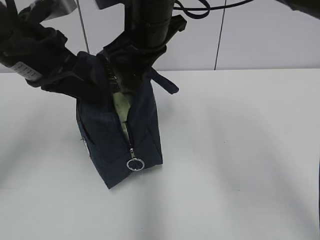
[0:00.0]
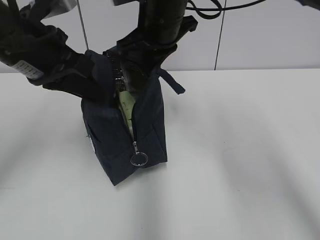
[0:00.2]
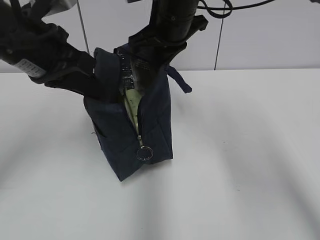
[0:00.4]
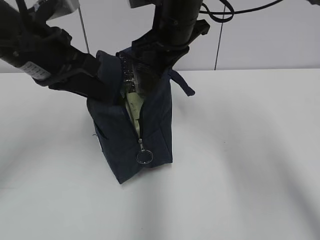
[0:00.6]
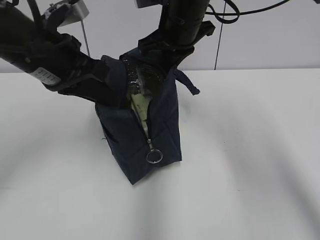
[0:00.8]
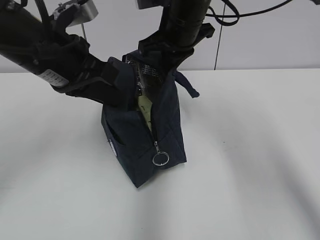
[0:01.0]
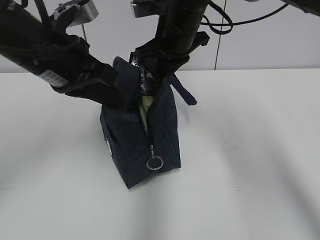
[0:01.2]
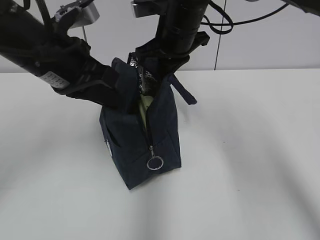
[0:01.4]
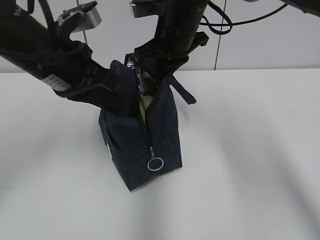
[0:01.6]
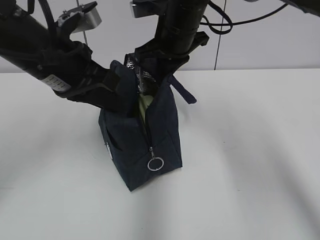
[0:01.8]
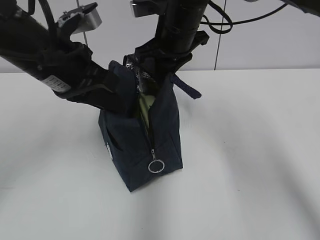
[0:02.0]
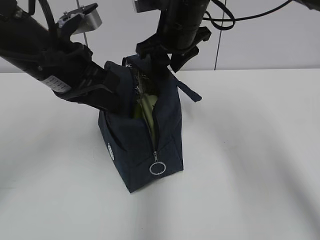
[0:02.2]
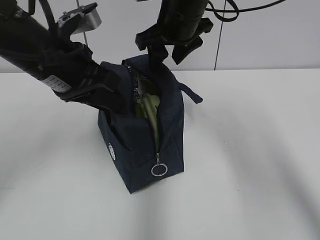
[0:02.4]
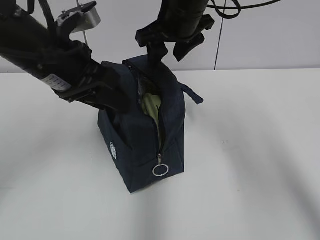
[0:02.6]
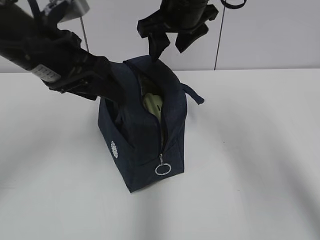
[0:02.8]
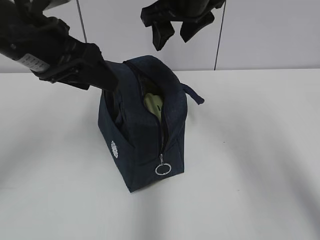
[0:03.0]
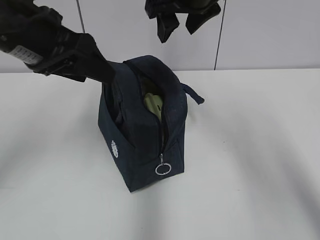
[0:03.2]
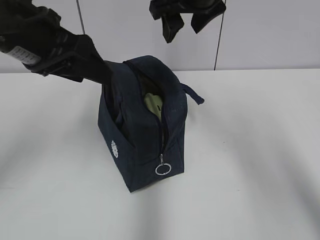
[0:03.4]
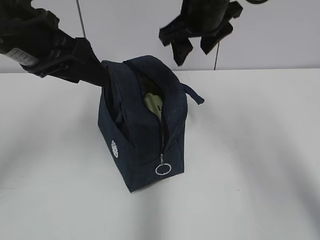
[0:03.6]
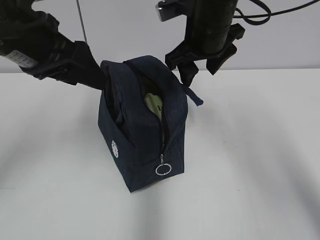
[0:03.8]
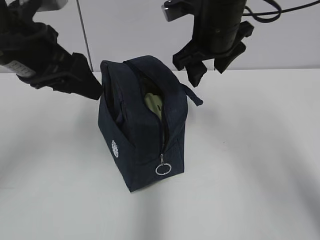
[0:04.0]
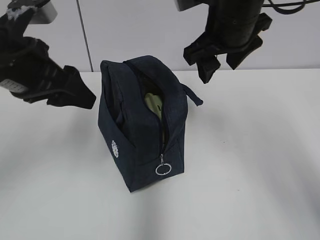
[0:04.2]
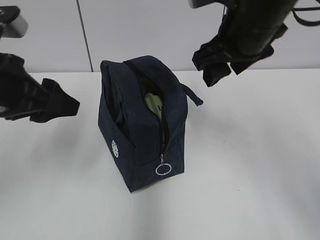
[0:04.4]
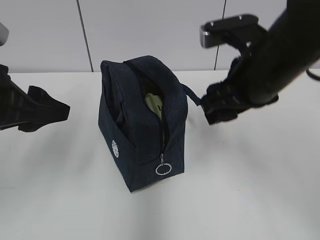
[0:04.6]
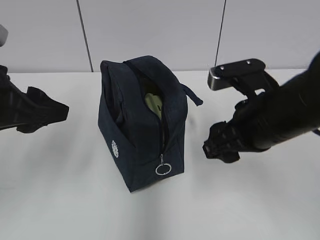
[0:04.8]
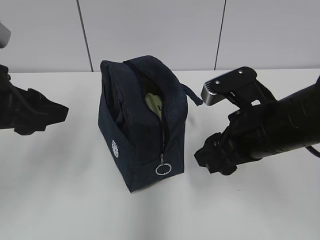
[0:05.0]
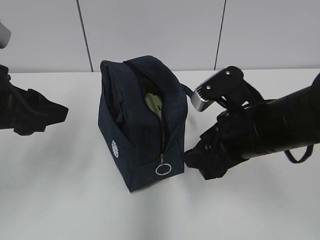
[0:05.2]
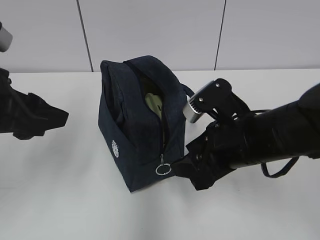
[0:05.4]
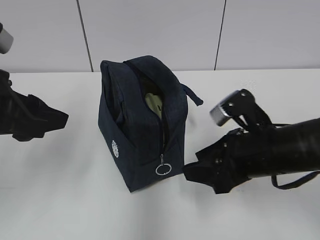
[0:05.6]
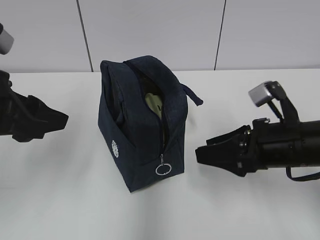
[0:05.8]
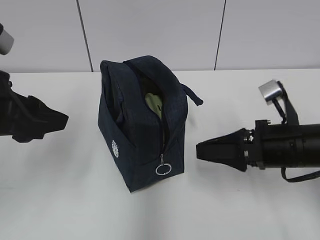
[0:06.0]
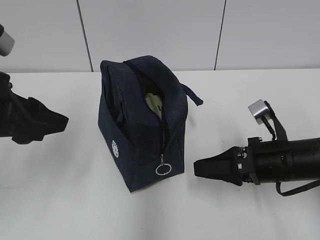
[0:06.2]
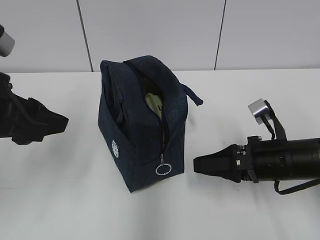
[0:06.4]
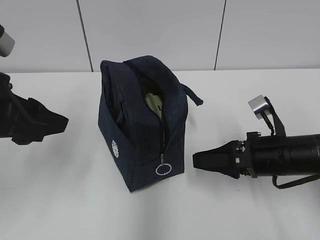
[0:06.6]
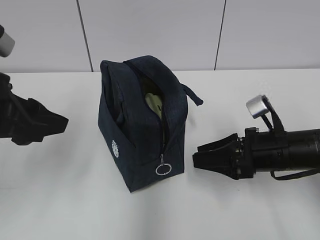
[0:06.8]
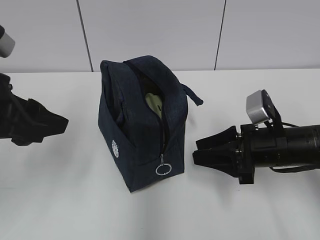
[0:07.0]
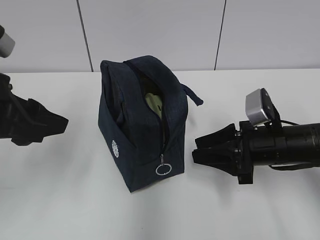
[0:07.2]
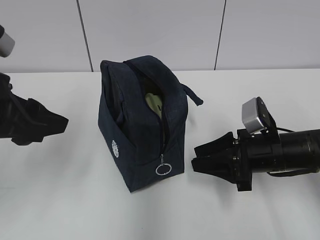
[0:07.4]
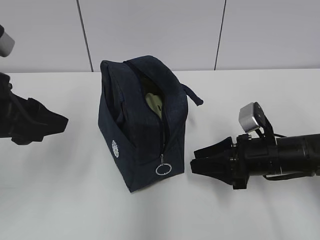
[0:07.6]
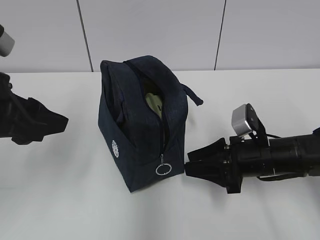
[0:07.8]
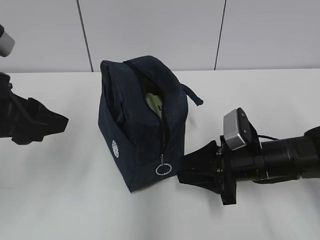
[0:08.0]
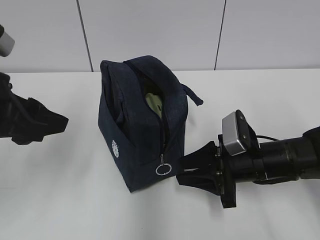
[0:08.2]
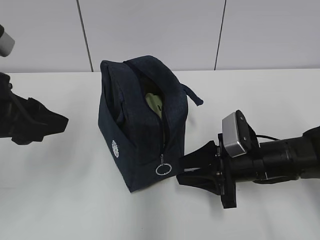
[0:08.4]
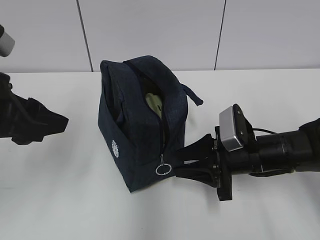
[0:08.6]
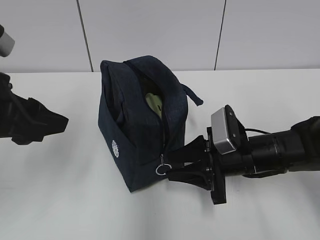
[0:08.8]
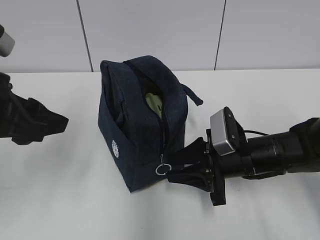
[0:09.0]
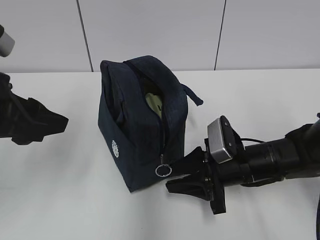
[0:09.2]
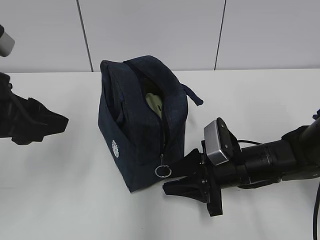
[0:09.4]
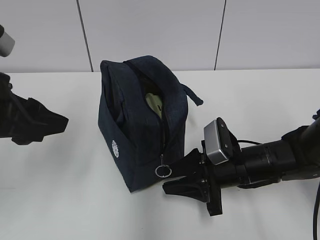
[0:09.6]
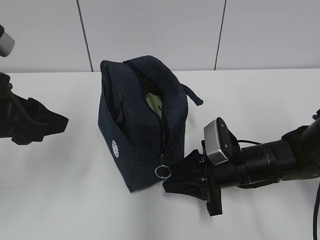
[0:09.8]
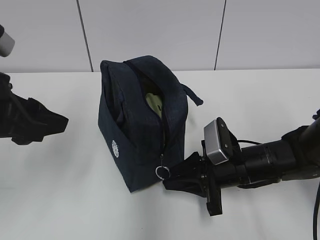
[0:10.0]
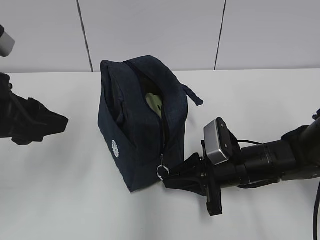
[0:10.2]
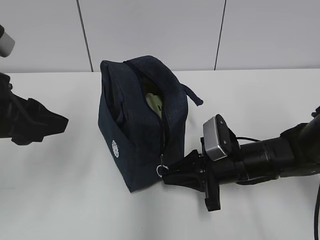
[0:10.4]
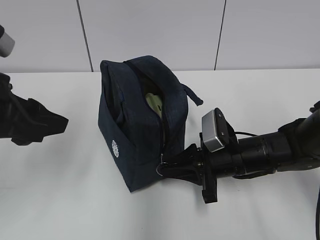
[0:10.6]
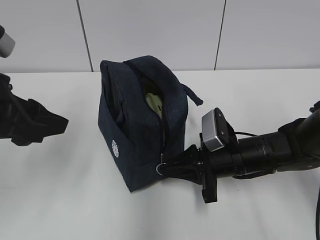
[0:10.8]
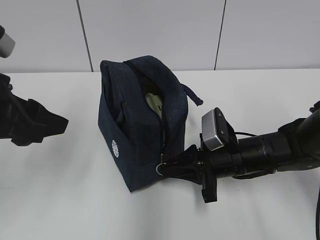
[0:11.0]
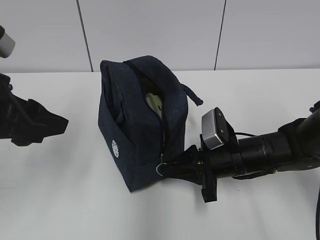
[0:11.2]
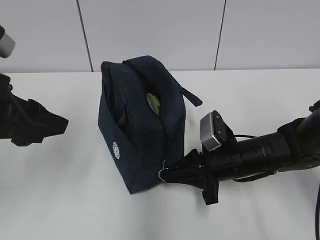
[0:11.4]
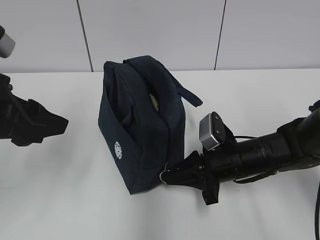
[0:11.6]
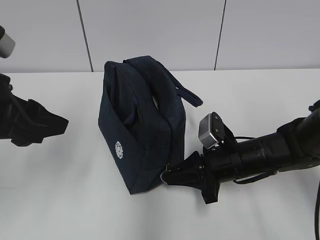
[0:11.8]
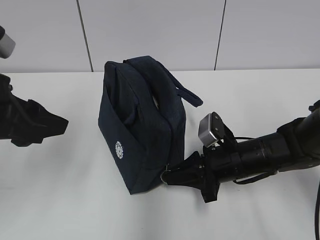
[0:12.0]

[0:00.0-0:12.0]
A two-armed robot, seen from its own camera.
Step, 0:00.0 to 0:02.2: Move the lunch bag to the right.
0:00.0 to 0:01.6: The right gripper changes place by roughly 5 cm.
0:01.6 to 0:03.0: The right gripper moves upward, approximately 5 cm, and opens up; the left gripper opens.
0:03.0 to 0:04.4: The left gripper ends up approximately 5 cm from where it was. The right gripper heads backward and to the right, covering roughly 10 cm.
0:04.4 to 0:06.0: The right gripper travels downward, to the right and backward by approximately 20 cm.
0:06.0 to 0:07.6: The right gripper goes roughly 5 cm downward.
0:09.0 to 0:10.4: The right gripper closes up.
0:10.4 to 0:12.0: The grippers move only a little.

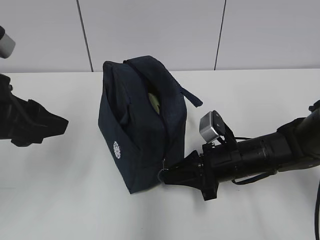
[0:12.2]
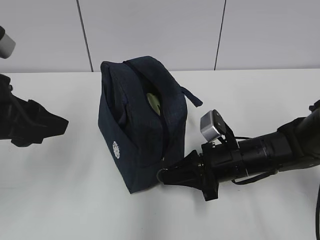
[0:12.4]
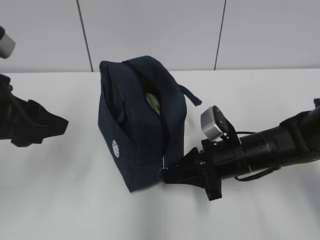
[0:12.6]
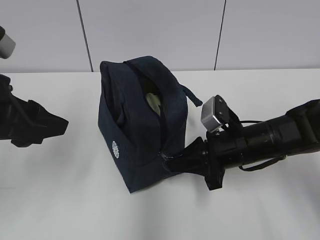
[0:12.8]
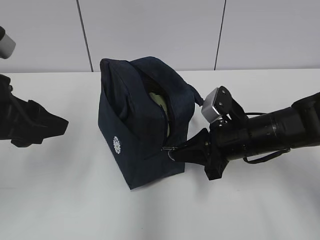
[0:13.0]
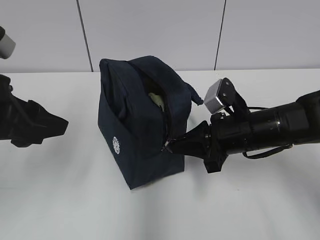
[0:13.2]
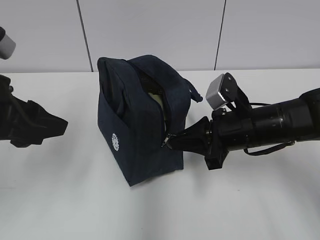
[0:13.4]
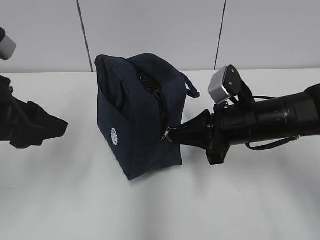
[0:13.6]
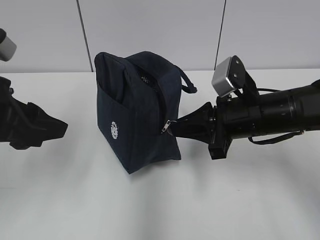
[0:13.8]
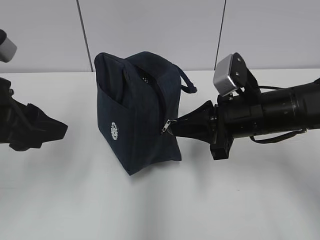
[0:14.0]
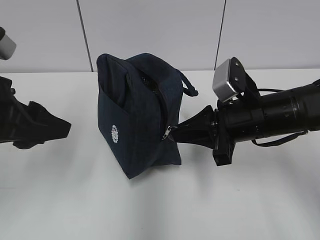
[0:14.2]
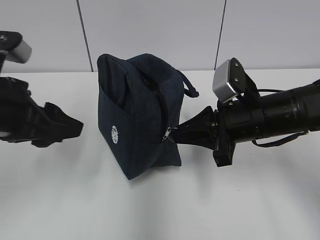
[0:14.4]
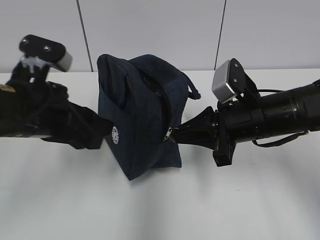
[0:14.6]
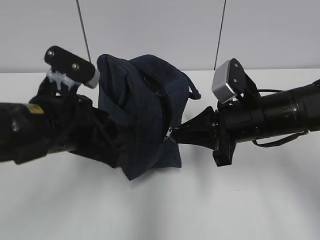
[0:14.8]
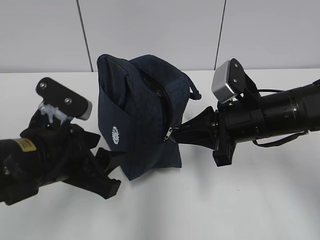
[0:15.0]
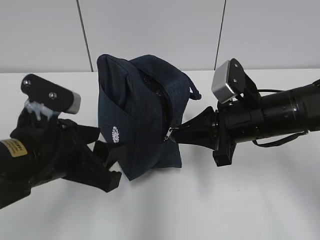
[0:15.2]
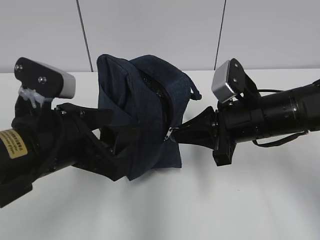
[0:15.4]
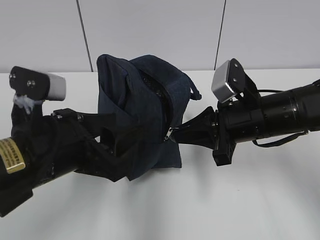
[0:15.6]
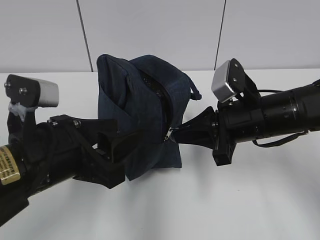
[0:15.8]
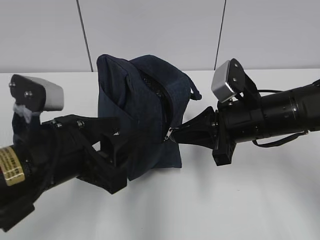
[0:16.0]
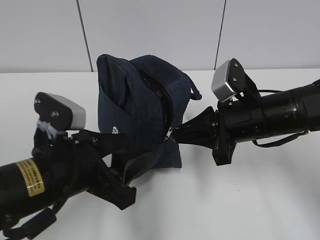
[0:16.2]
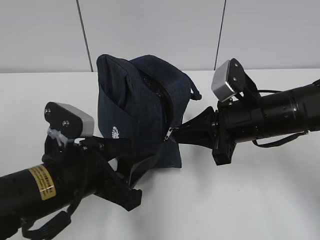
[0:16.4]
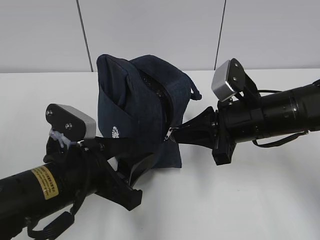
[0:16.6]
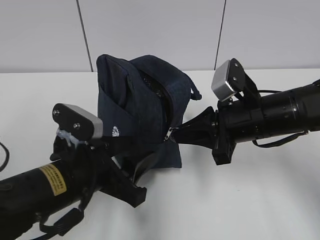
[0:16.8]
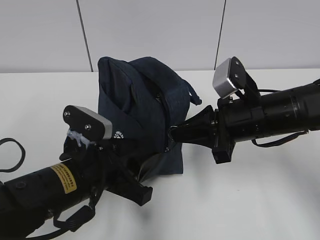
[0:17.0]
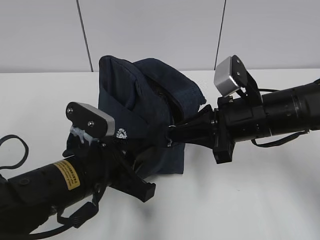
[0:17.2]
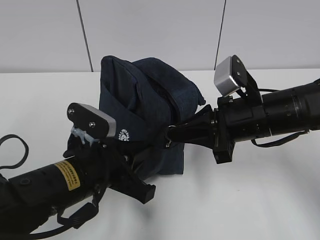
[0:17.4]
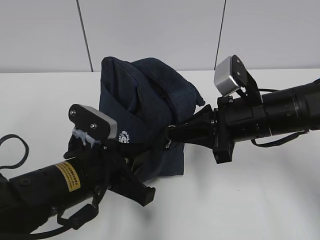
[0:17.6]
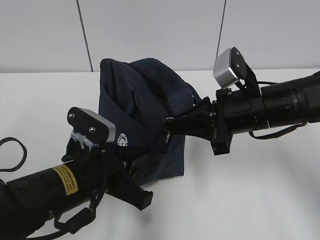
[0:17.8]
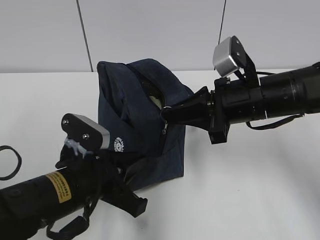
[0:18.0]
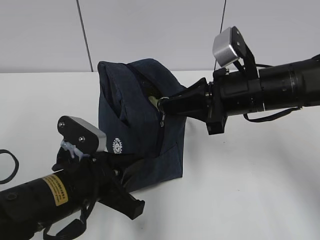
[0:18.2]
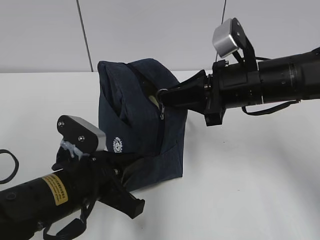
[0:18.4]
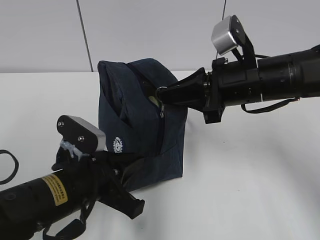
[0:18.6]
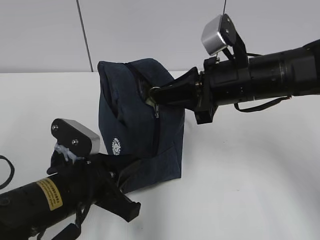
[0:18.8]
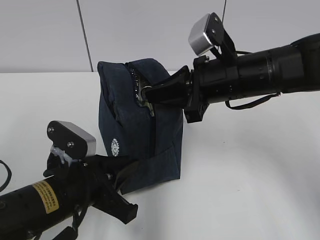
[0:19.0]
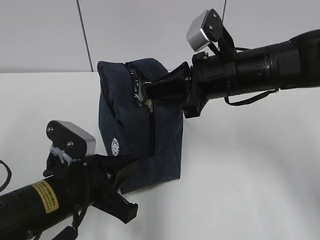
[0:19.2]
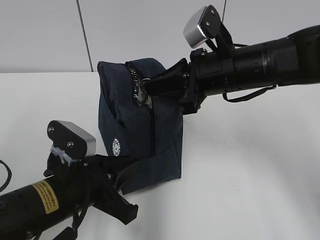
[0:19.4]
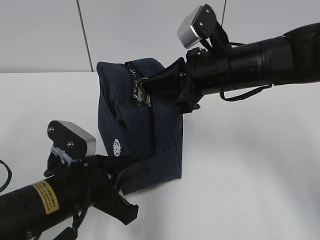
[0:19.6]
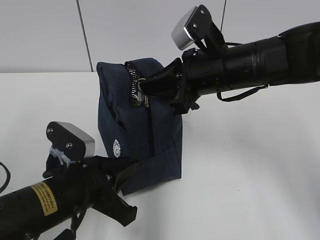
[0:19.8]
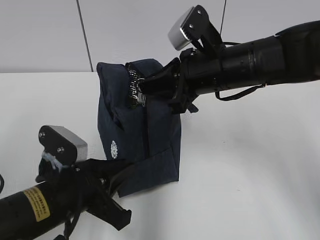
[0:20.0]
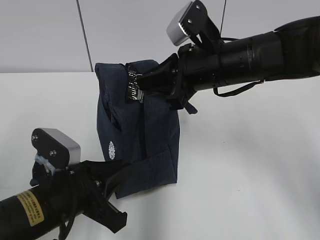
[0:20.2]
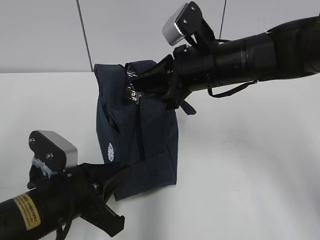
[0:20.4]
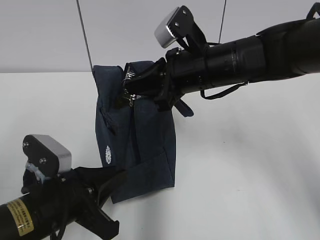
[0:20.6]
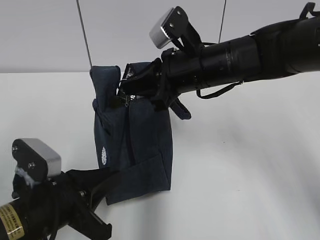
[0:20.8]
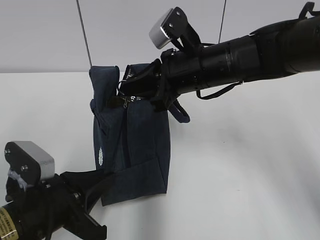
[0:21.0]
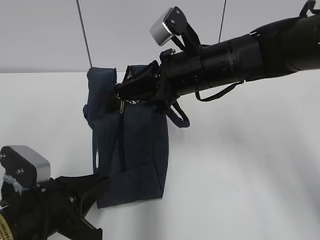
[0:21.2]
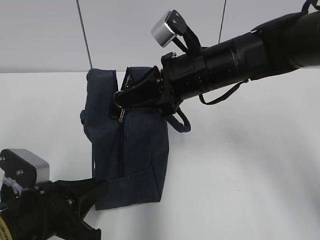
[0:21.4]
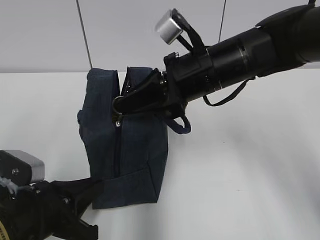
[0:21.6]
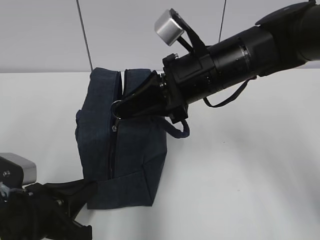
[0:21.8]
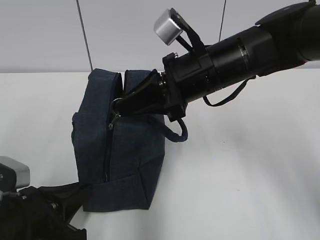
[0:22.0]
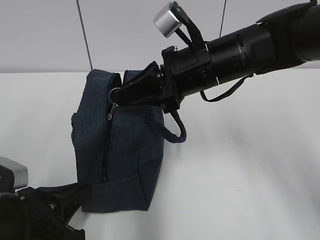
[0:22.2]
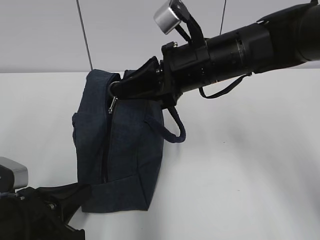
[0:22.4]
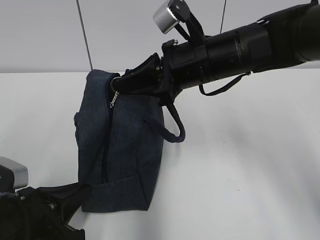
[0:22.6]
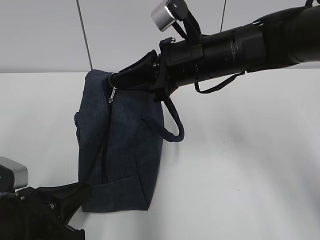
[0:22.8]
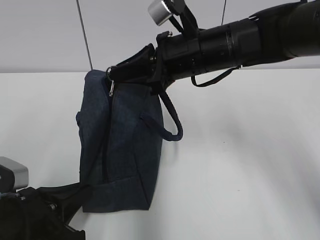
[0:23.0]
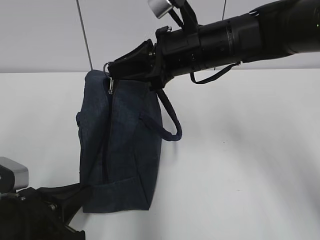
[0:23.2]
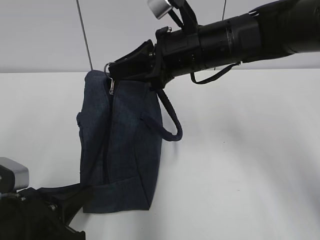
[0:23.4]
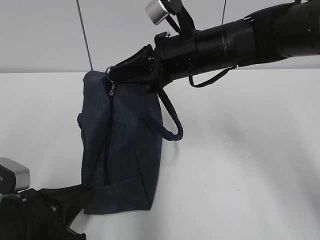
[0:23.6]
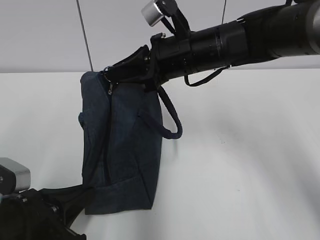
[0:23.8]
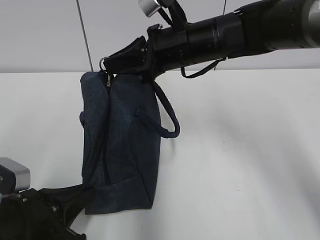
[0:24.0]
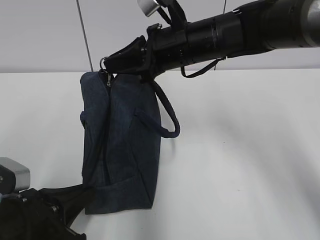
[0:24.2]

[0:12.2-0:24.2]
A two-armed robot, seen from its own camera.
Step, 0:12.2 to 0:17.2: Grab the lunch bag with your left hand.
0:12.2 to 0:13.8: The right gripper travels upward by some 10 cm.
0:13.8 to 0:15.2: The left gripper is displaced to the right and downward by approximately 10 cm.
0:15.2 to 0:16.6: The left gripper moves some 5 cm.
0:16.6 to 0:18.2: The left gripper closes.
0:18.2 to 0:19.8: The right gripper shifts by roughly 5 cm.
0:19.8 to 0:21.2: The left gripper shifts by about 5 cm.
0:21.2 to 0:24.2: The grippers move only a little.
